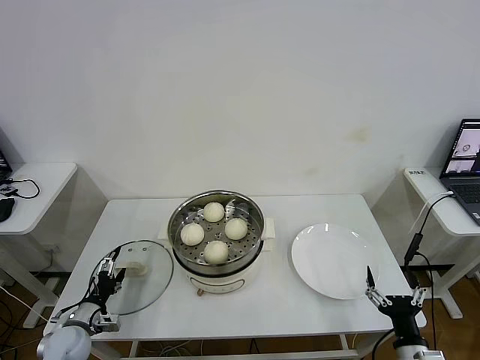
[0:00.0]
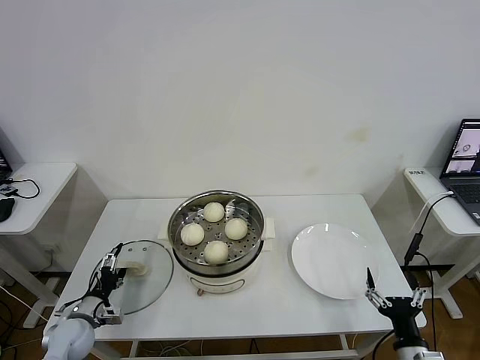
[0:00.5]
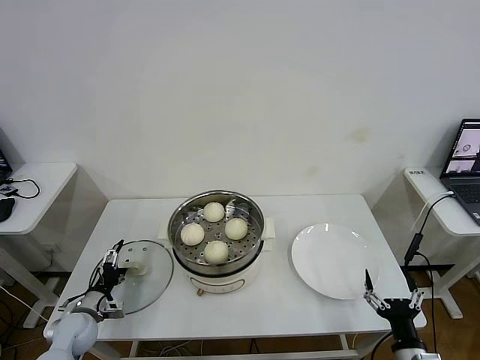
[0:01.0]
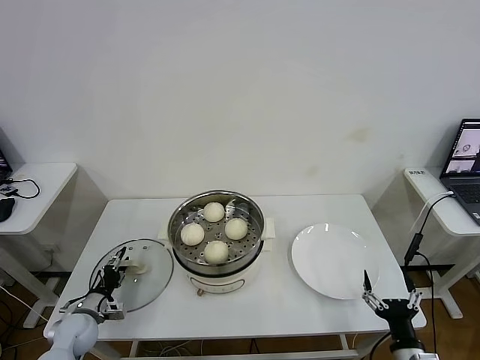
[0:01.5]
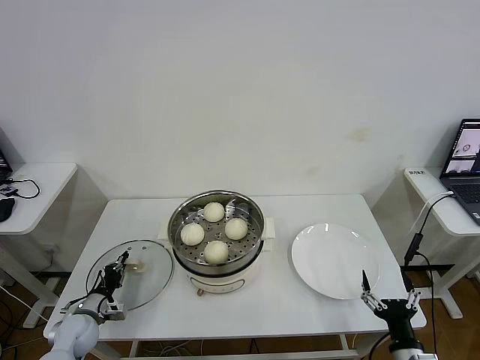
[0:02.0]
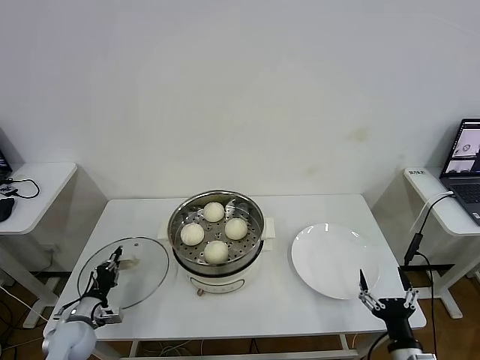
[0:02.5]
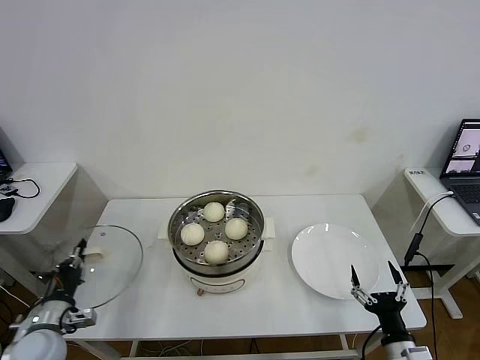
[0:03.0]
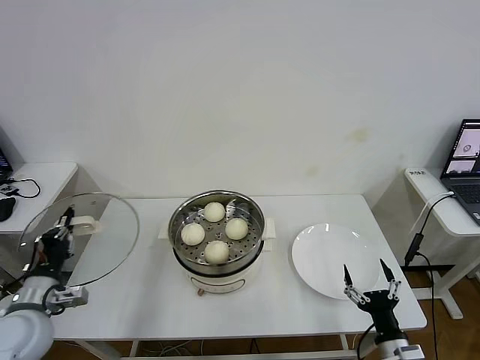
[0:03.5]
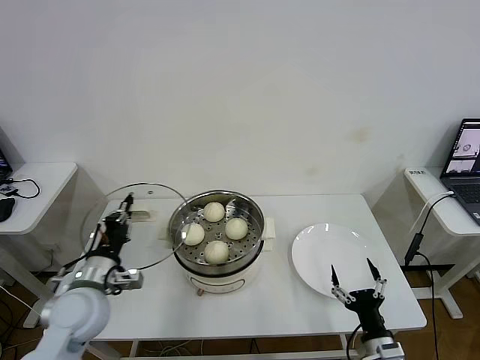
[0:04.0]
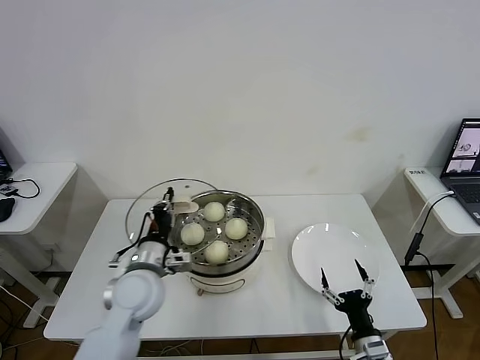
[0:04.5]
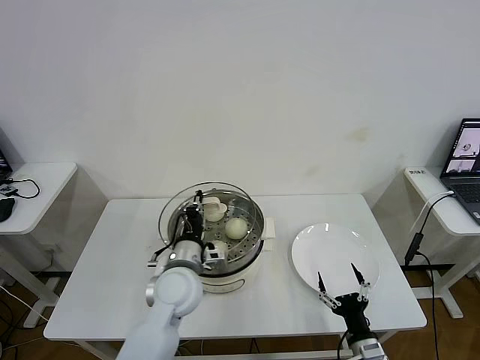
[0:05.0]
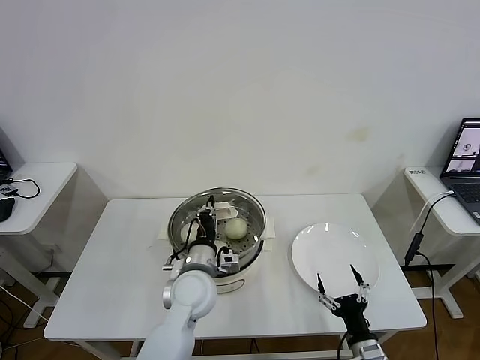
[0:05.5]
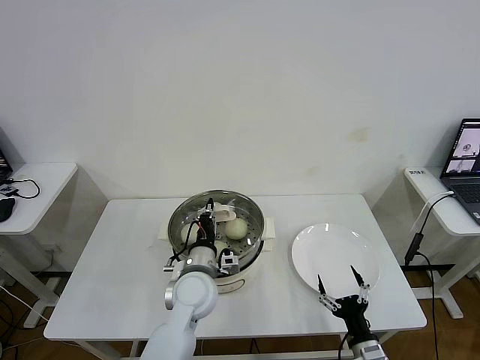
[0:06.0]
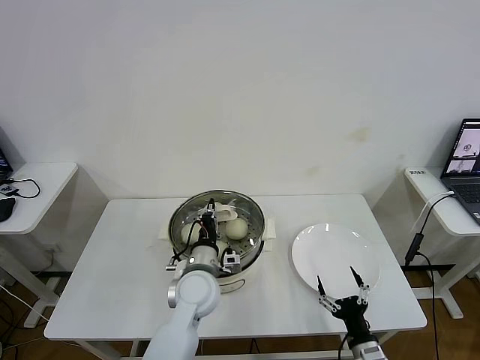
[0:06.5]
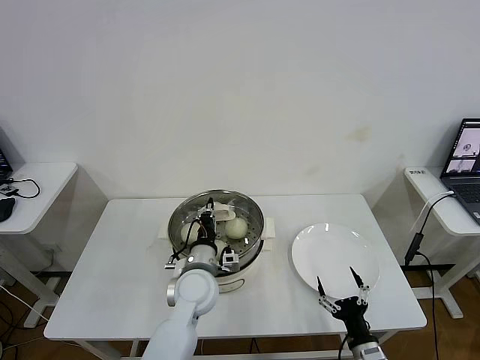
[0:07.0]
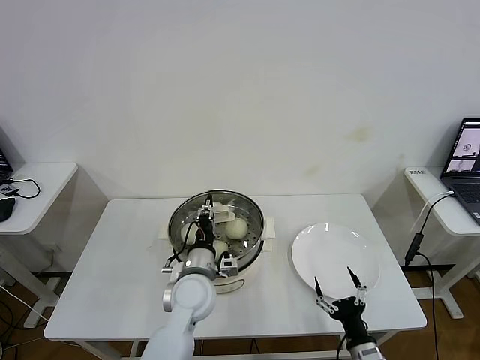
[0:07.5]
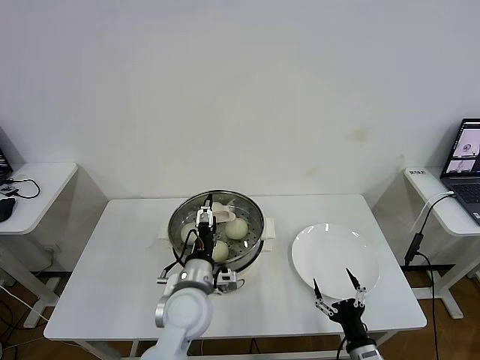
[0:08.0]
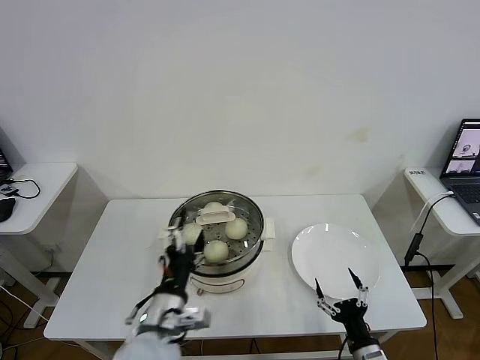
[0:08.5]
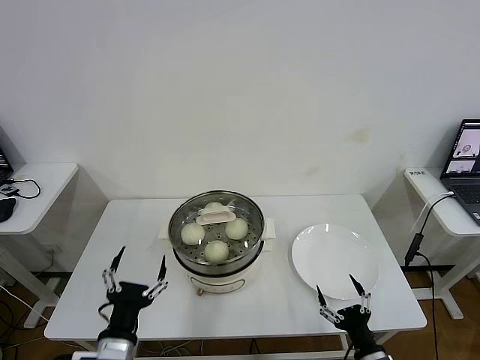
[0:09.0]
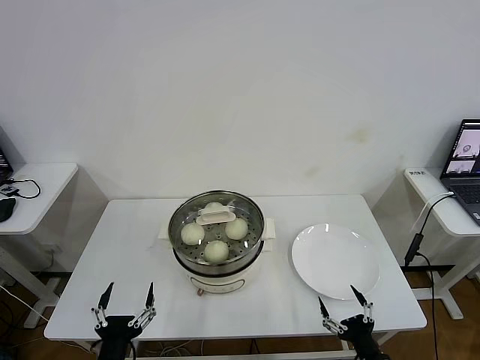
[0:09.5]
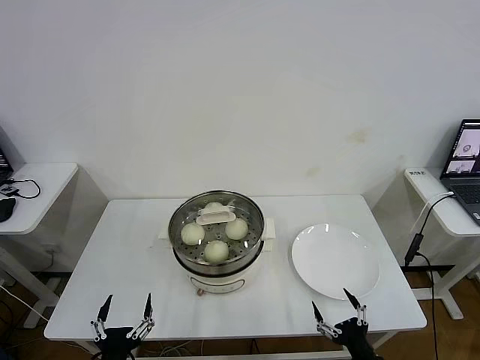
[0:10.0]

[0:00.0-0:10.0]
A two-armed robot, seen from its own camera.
Task of the whole recording: take steamed baozi put them in steamer then cover it.
Step, 0:00.0 to 0:02.0: Grasp the pot lid with left gripper.
Step, 0:02.5 to 0:08.0: Place the pot lid on the steamer with left gripper.
0:00.0 to 0:02.0: The left gripper closes its fingers.
0:02.0 to 0:04.0: The left gripper moves upward and to the right, approximately 25 cm.
0:04.0 to 0:06.0: The left gripper is displaced to the right by about 20 cm.
0:06.0 to 0:08.0: The left gripper opens its fingers.
0:08.0 to 0:10.0: The left gripper moves backward and to the left, roughly 25 cm, while the right gripper ends up approximately 5 cm from where it was.
